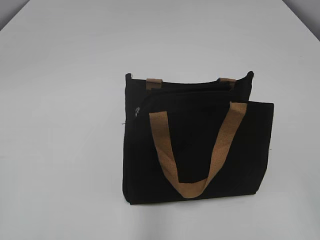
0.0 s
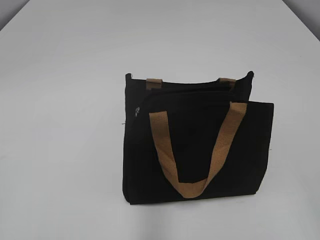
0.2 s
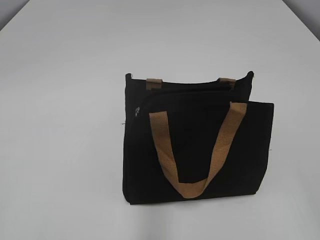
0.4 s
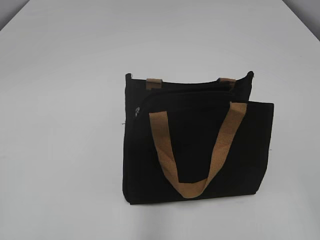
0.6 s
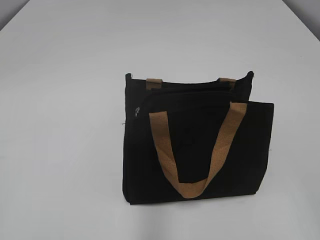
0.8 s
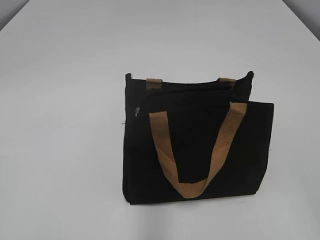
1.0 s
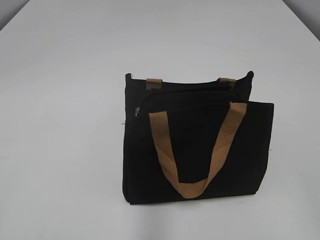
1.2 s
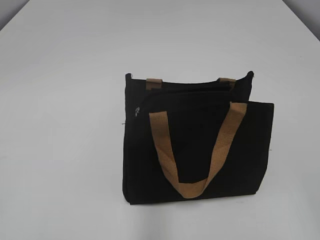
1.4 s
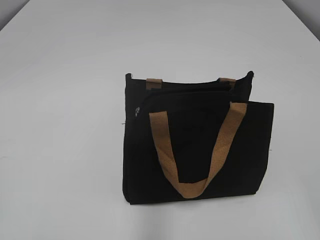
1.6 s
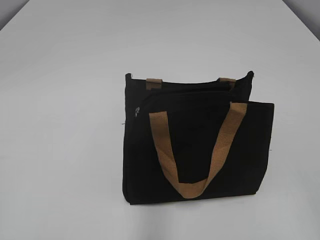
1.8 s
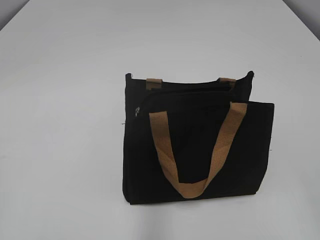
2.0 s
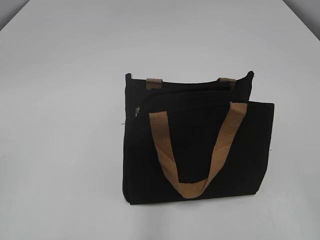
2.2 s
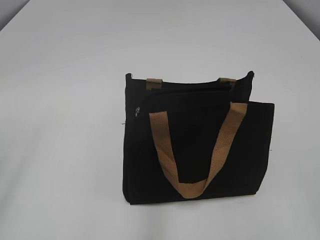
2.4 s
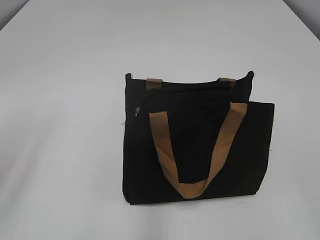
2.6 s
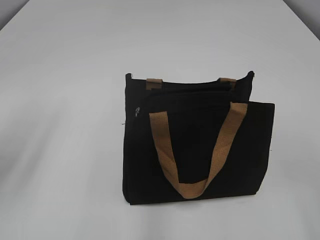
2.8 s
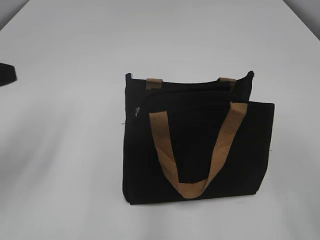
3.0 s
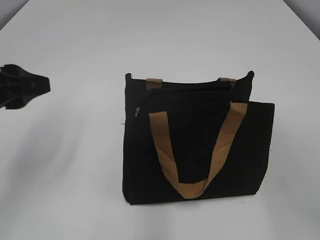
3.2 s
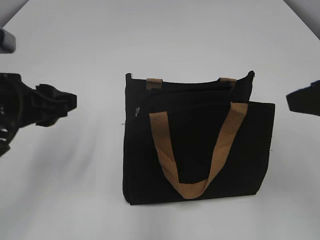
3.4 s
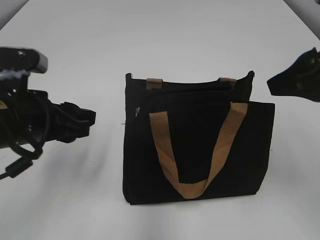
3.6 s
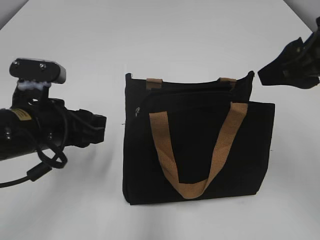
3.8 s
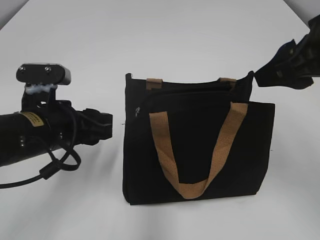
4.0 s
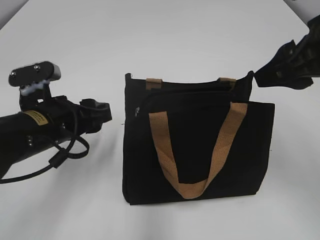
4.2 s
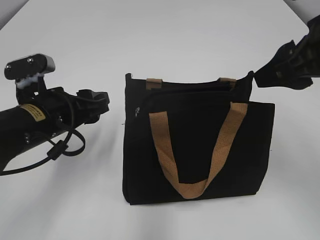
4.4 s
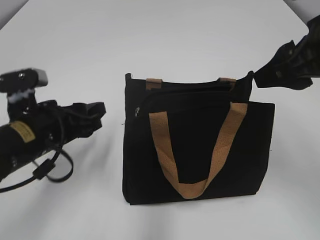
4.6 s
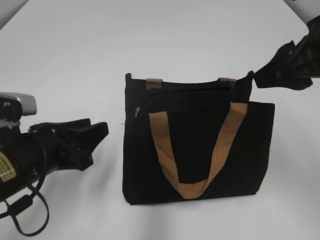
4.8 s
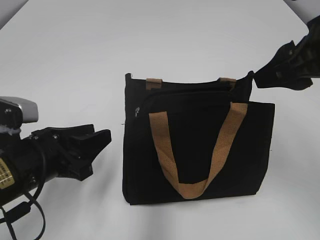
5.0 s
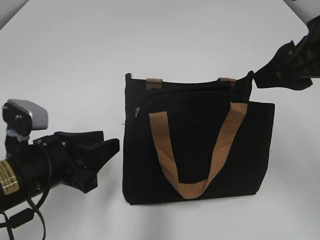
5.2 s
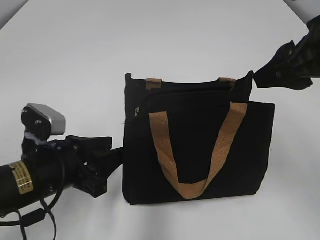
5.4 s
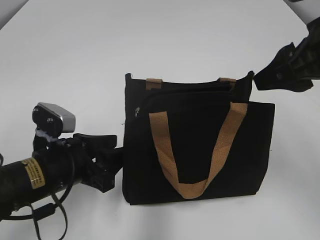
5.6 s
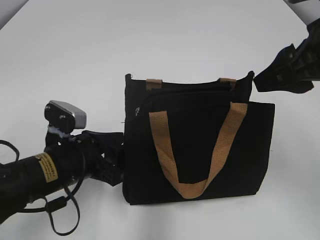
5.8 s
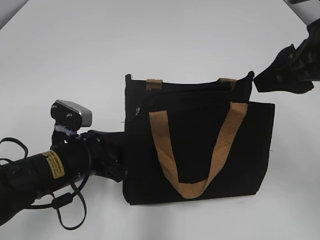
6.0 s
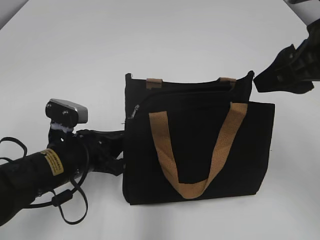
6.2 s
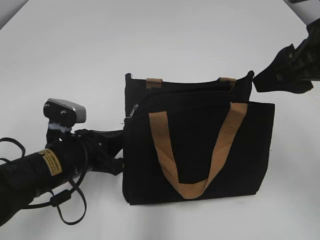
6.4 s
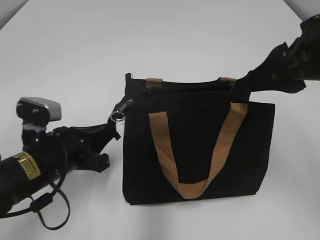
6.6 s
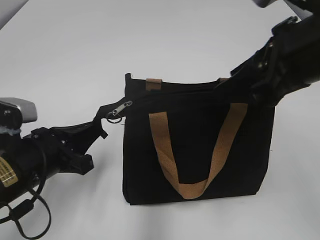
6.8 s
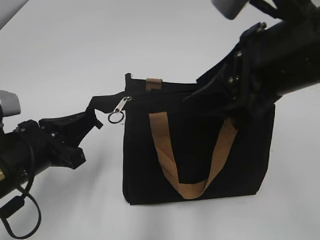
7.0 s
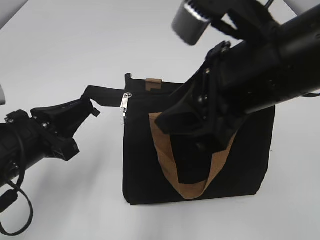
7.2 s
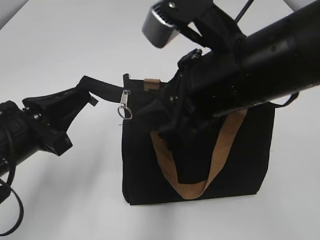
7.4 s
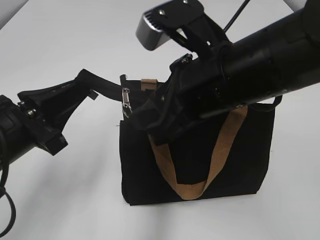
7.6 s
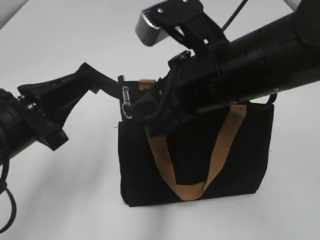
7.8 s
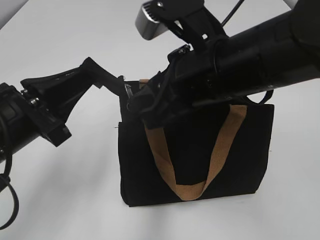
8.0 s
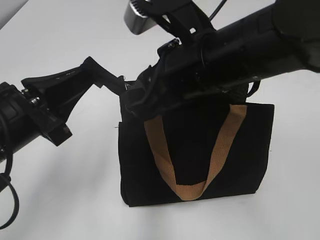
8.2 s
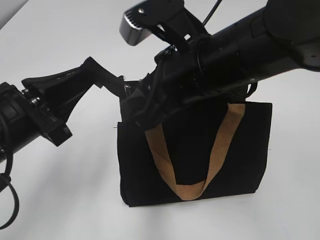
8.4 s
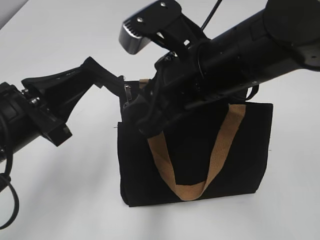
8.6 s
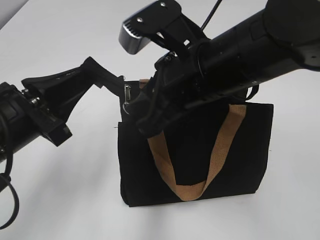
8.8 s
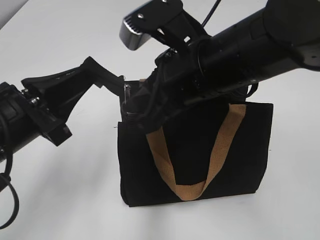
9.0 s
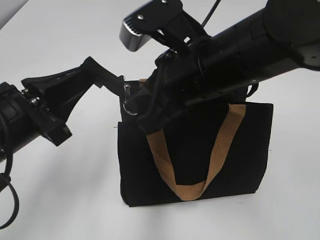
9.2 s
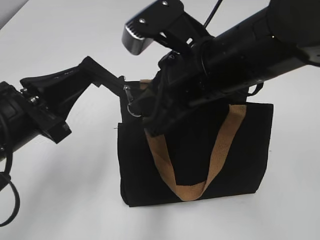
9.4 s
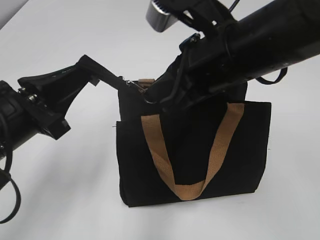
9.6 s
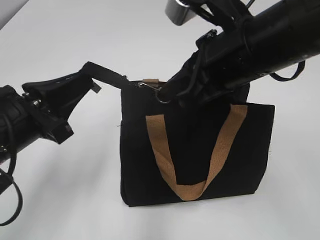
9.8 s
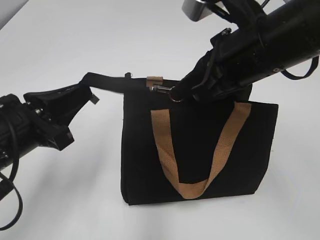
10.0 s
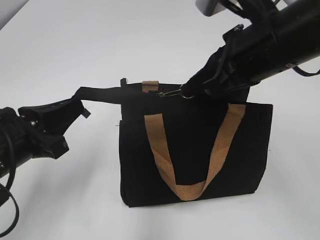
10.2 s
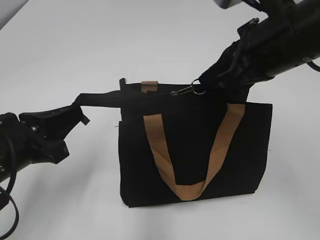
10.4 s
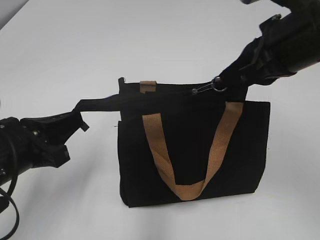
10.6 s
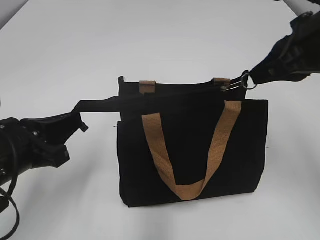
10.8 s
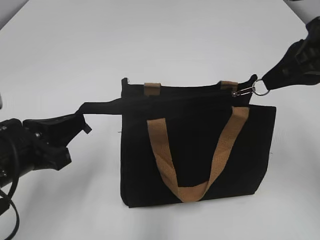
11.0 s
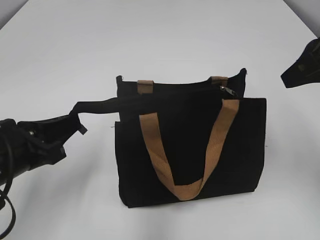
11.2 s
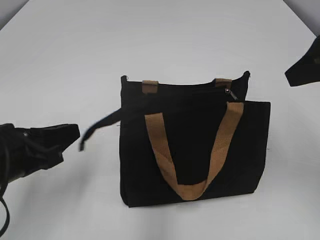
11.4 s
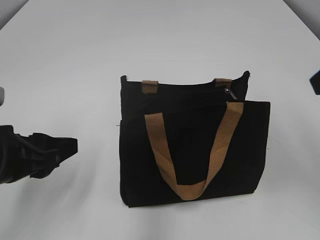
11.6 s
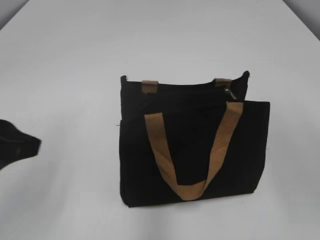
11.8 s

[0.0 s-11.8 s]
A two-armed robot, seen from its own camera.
Step, 0.0 to 11.0 s: Zip up the bag with your right hand.
Step, 11.2 to 11.4 s: Grab the zipper with your left hand.
1.4 to 3.0 s: The left gripper goes roughly 20 cm forward.
3.0 to 4.4 s: The right gripper shifts about 15 cm forward; the left gripper is displaced downward, to the right and forward by roughly 15 cm.
4.4 to 6.0 s: The left gripper shifts roughly 5 cm downward.
6.0 to 7.4 s: The right gripper heads to the left, covering approximately 15 cm. Meanwhile the left gripper heads upward, covering roughly 10 cm, and closes up.
8.8 to 10.4 s: The right gripper is displaced to the right by about 10 cm.
10.4 to 11.8 s: The left gripper moves upward, some 5 cm, and opens up; the right gripper goes roughly 15 cm to the right, backward and upward, and opens up.

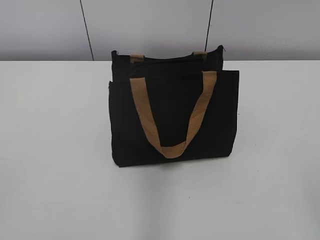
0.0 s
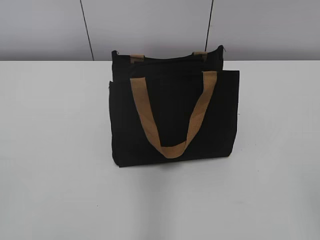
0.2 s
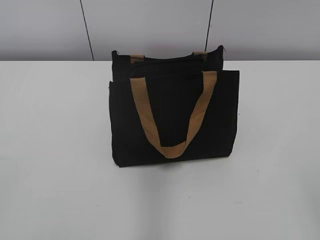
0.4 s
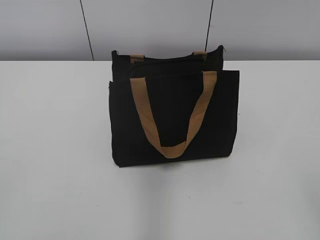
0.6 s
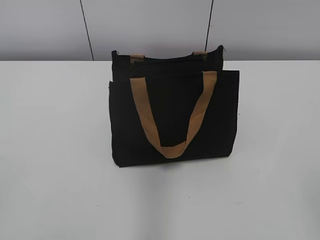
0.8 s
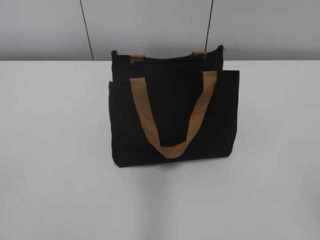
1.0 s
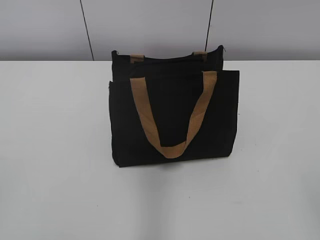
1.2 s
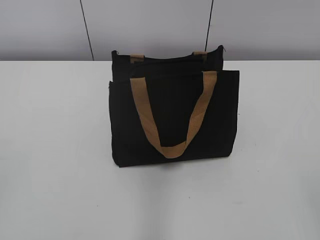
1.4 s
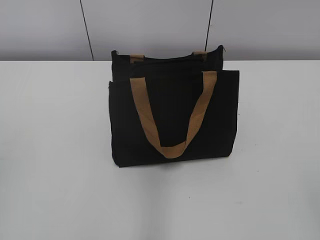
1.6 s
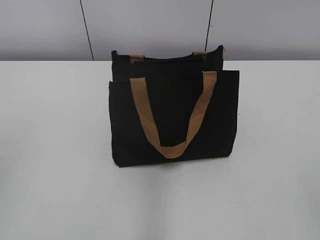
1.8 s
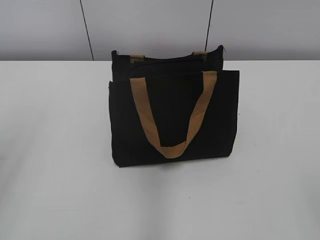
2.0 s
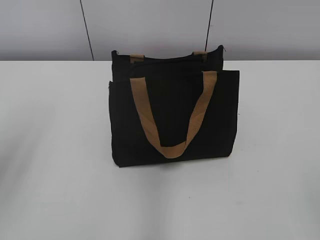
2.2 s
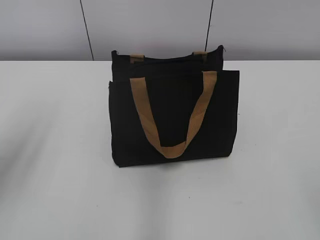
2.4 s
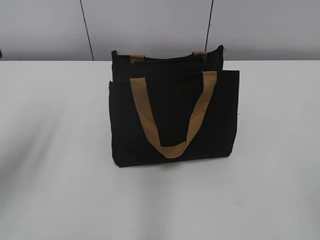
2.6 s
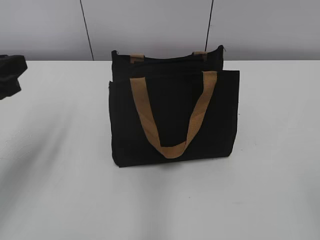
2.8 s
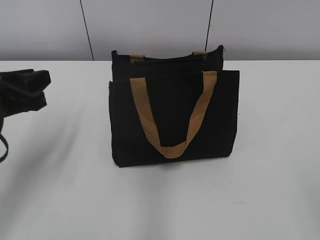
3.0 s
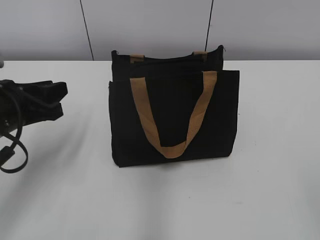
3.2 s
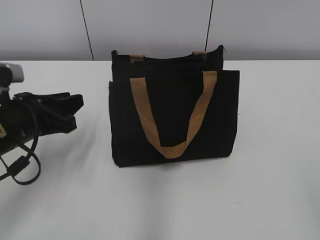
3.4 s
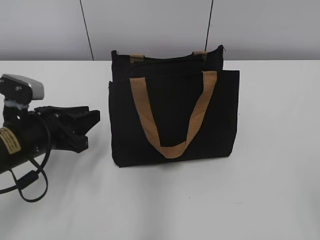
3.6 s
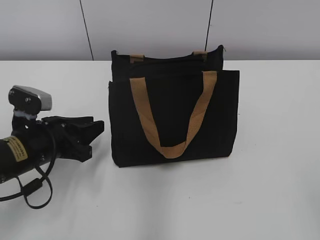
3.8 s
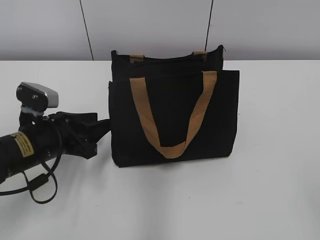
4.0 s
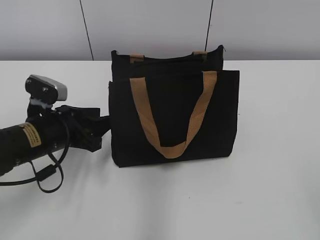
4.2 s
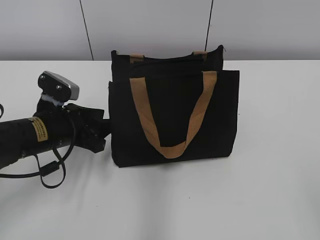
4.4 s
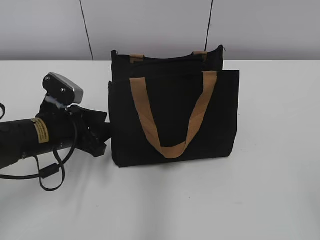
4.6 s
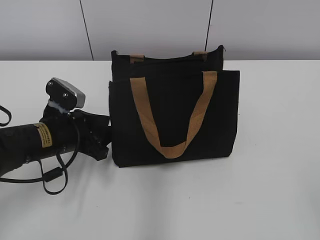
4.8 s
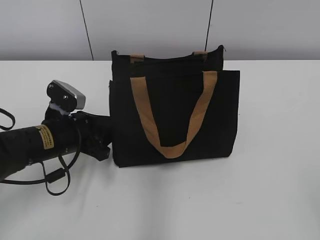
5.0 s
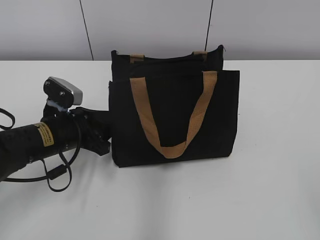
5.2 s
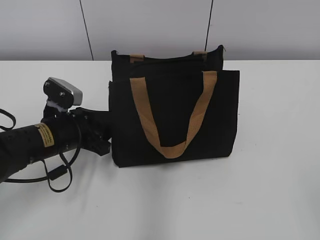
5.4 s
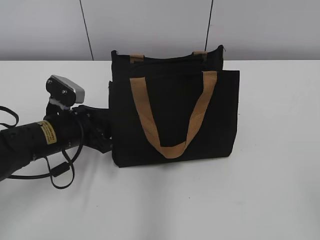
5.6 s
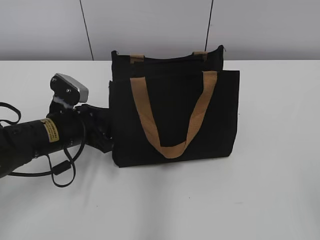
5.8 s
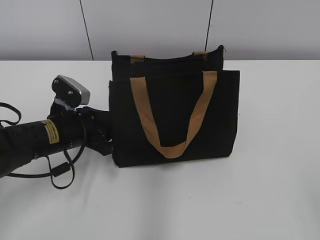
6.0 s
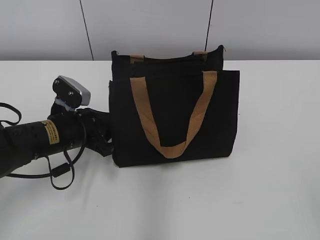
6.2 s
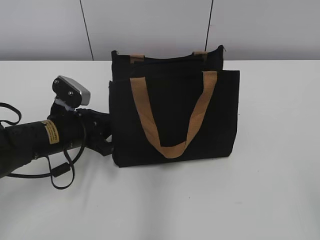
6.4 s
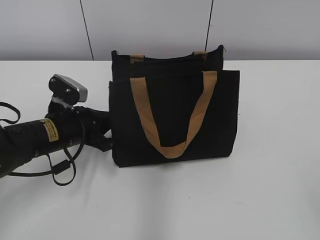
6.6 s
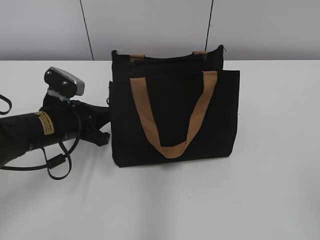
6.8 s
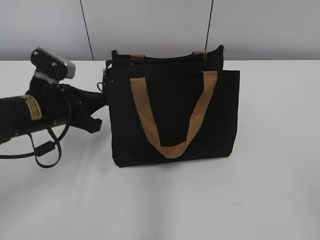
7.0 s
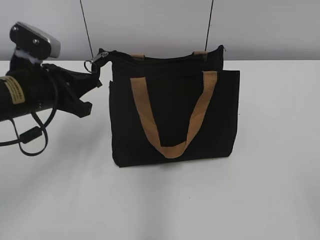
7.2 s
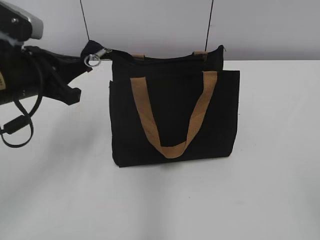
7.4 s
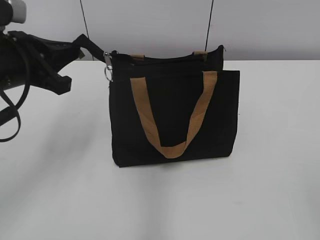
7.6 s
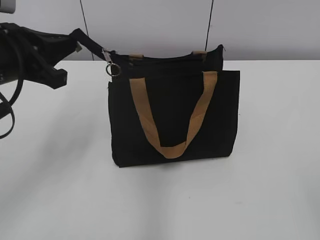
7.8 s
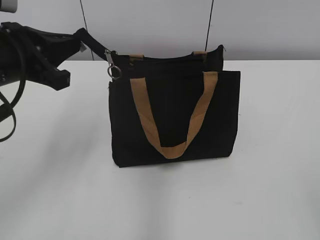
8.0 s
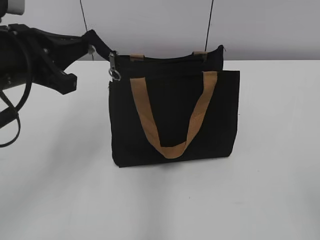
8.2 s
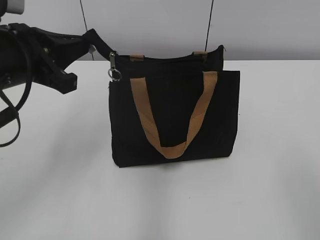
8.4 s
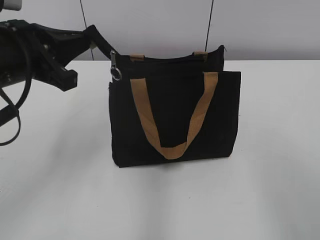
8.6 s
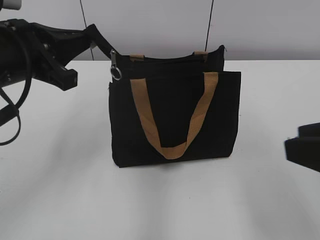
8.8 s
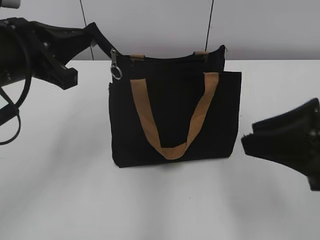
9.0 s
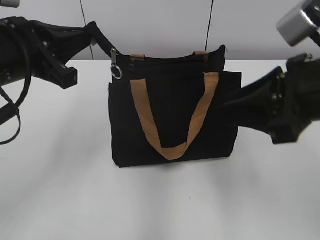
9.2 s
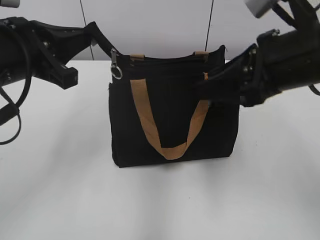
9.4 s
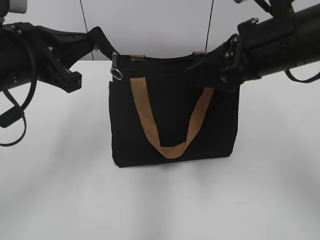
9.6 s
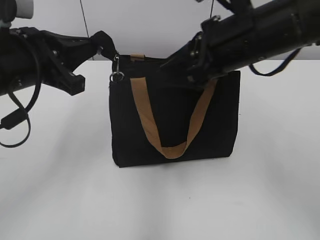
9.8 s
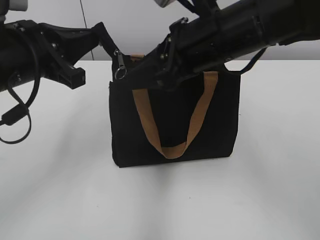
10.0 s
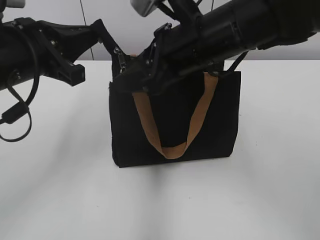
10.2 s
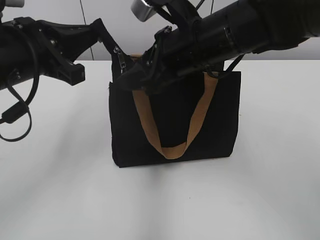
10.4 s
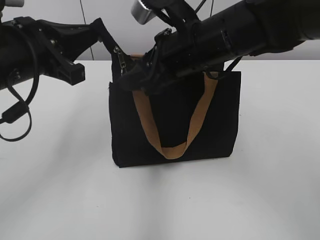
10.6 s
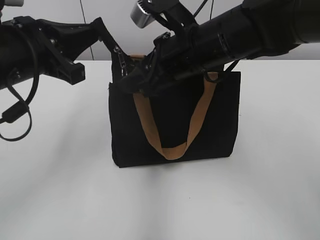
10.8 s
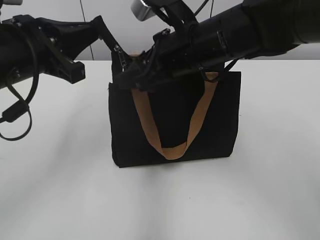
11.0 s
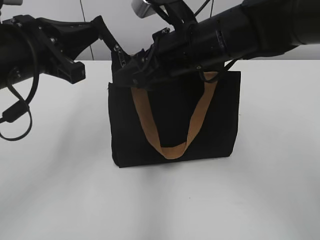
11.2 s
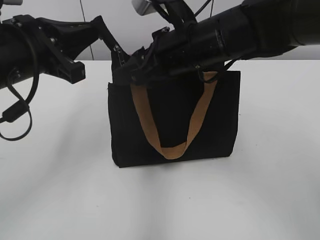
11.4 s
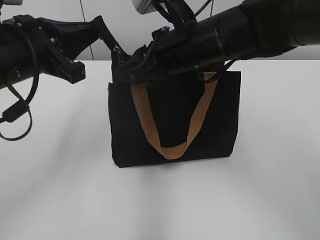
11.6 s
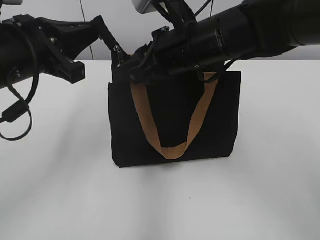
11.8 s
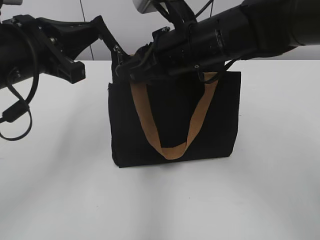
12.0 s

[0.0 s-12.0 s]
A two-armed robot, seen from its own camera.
1.6 to 3.0 s: The left gripper shifts approximately 25 cm forward, downward and to the right.
3.0 to 4.4 s: The left gripper travels downward, to the right and forward by approximately 10 cm.
4.4 to 6.0 s: There are only small adjustments of the grippers.
6.0 to 7.6 s: The left gripper heads upward, covering approximately 15 cm, and closes.
7.6 to 9.0 s: The right gripper moves forward and to the left, some 15 cm.
9.0 to 10.4 s: The right gripper goes approximately 20 cm forward and to the left.
10.4 to 12.0 s: The right gripper closes.
